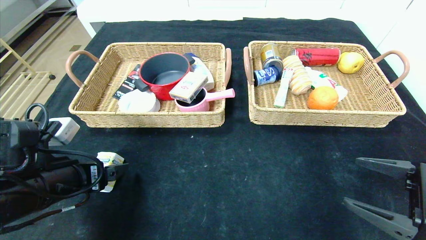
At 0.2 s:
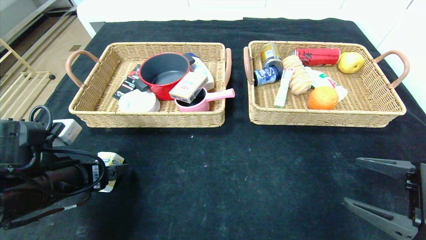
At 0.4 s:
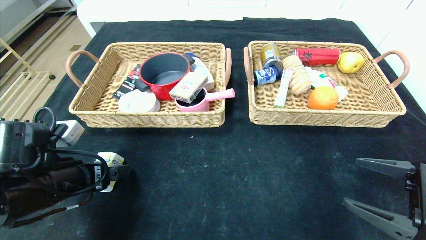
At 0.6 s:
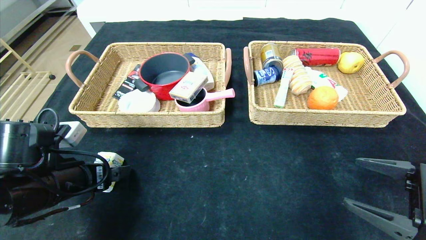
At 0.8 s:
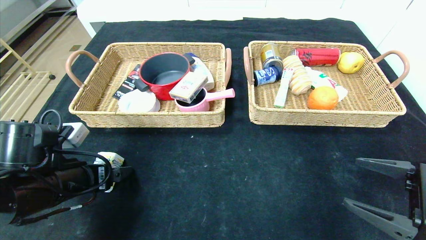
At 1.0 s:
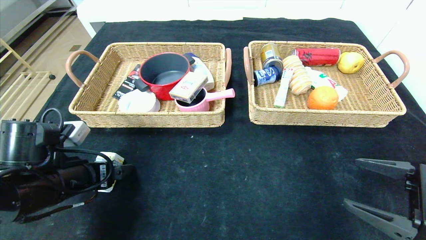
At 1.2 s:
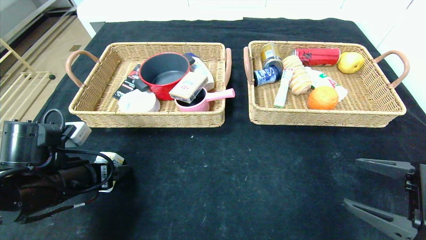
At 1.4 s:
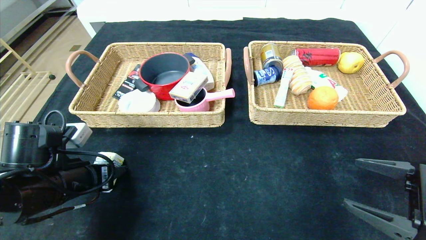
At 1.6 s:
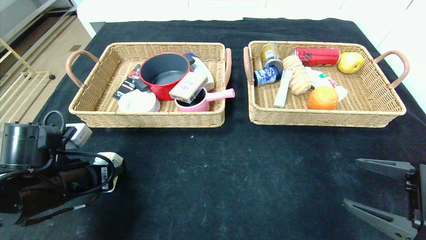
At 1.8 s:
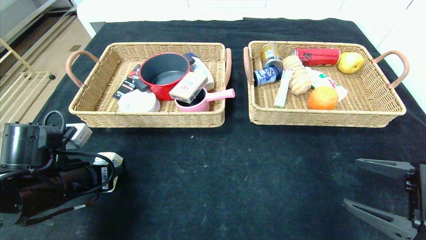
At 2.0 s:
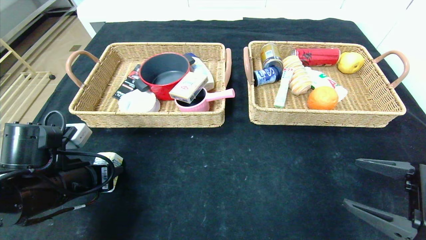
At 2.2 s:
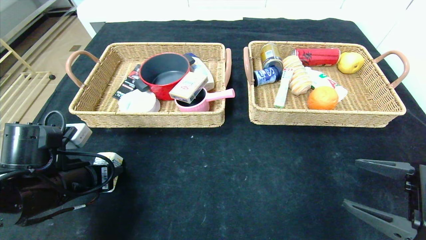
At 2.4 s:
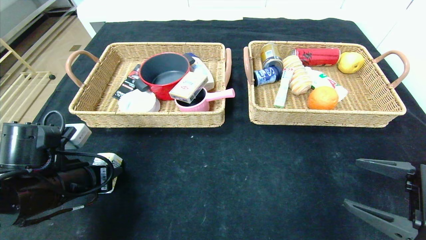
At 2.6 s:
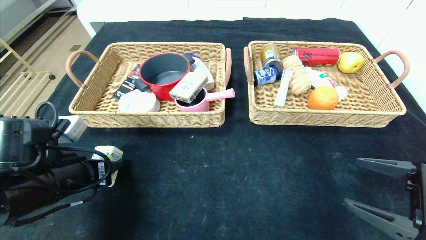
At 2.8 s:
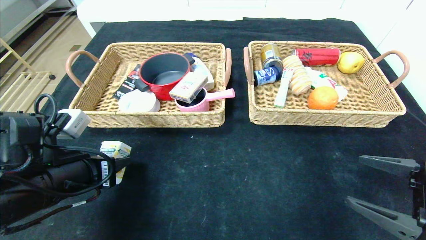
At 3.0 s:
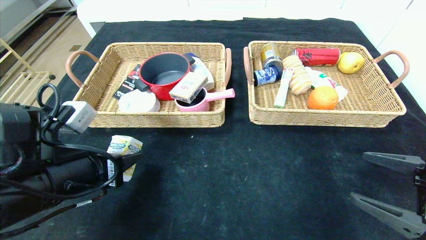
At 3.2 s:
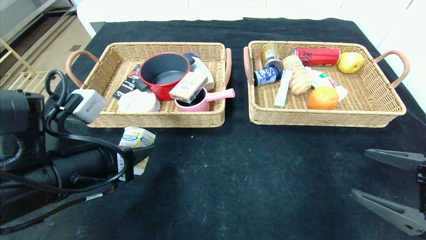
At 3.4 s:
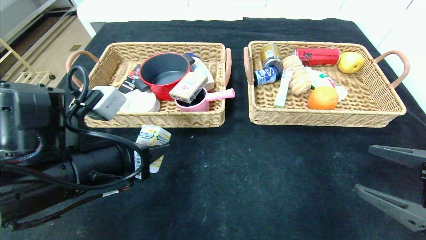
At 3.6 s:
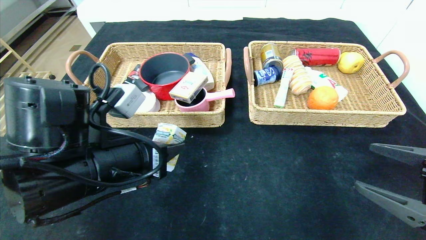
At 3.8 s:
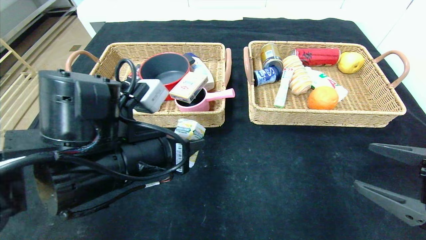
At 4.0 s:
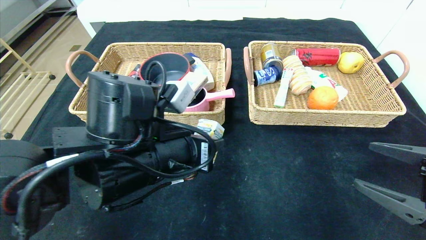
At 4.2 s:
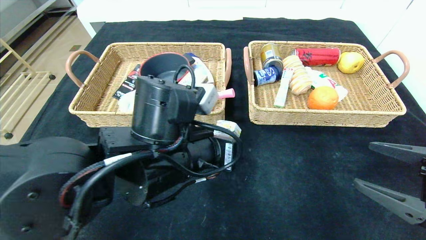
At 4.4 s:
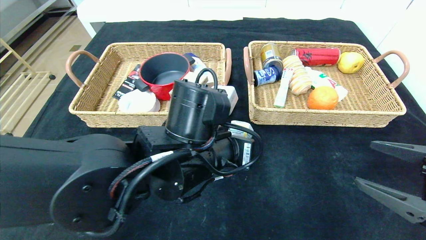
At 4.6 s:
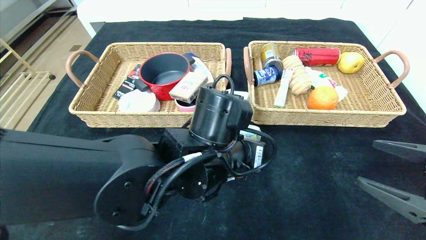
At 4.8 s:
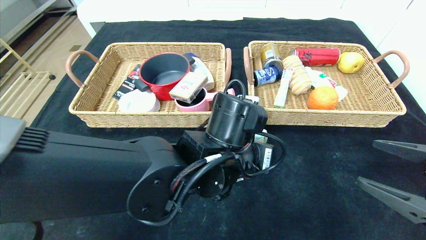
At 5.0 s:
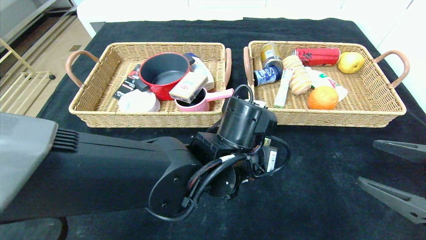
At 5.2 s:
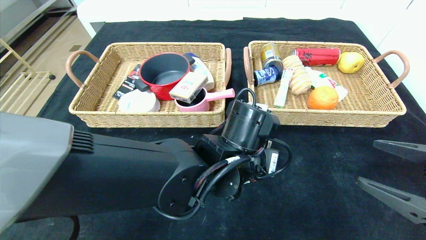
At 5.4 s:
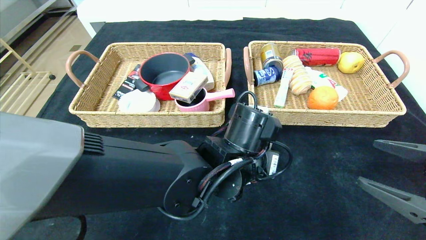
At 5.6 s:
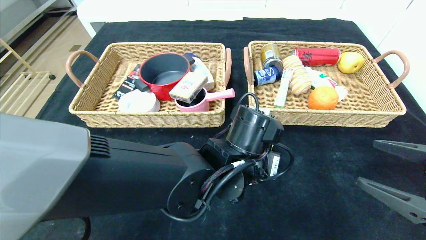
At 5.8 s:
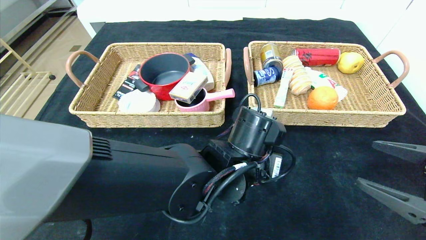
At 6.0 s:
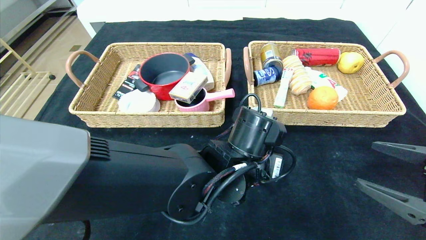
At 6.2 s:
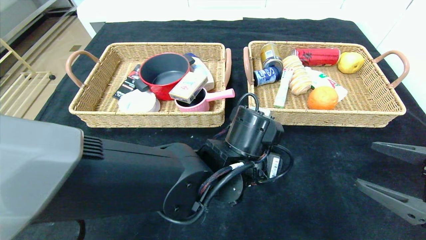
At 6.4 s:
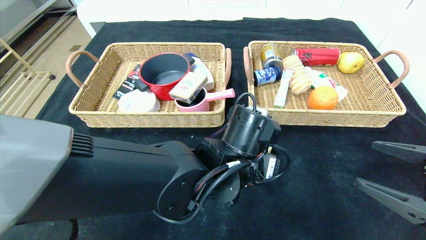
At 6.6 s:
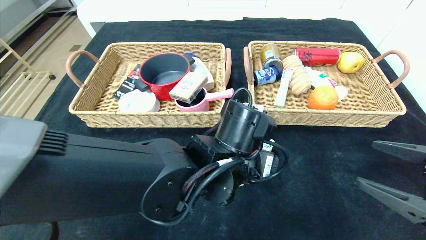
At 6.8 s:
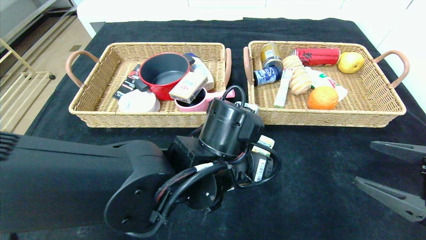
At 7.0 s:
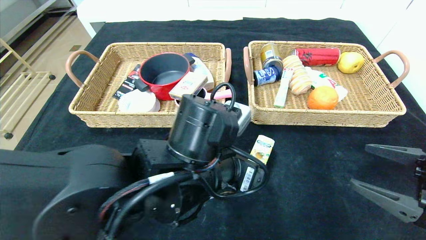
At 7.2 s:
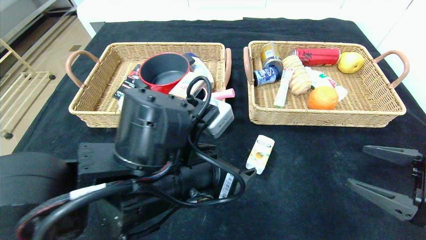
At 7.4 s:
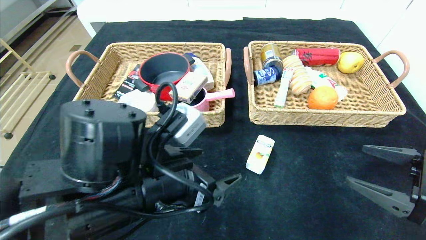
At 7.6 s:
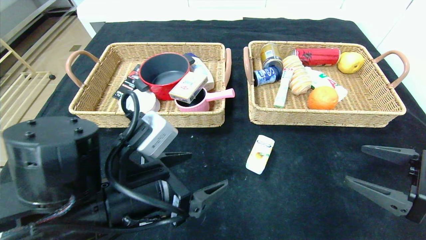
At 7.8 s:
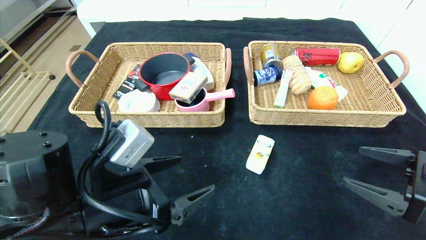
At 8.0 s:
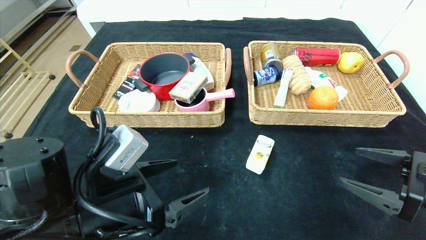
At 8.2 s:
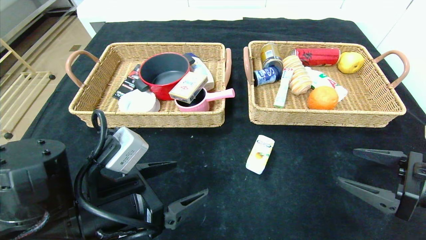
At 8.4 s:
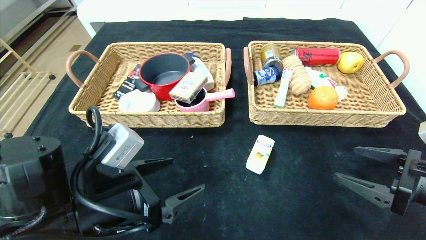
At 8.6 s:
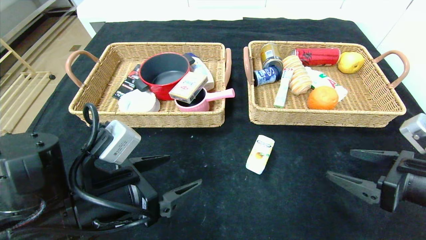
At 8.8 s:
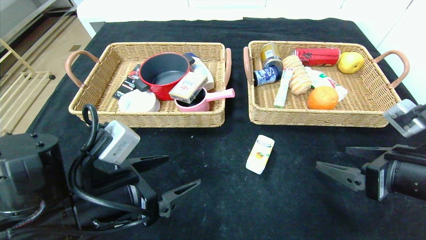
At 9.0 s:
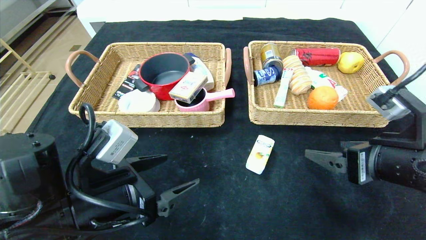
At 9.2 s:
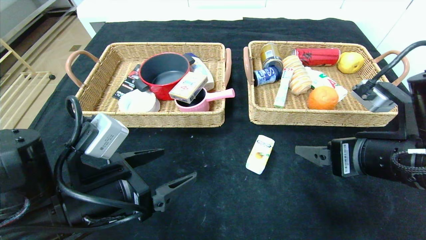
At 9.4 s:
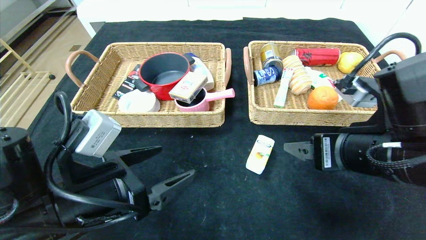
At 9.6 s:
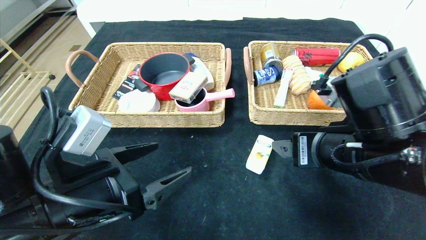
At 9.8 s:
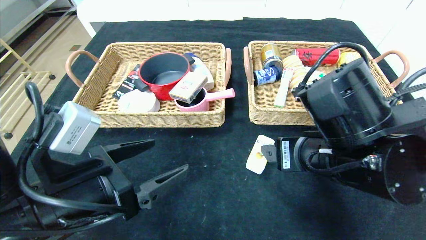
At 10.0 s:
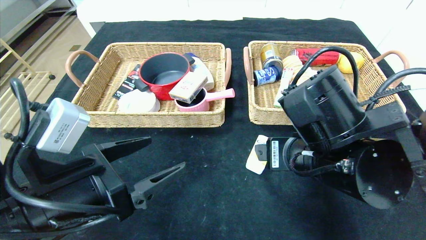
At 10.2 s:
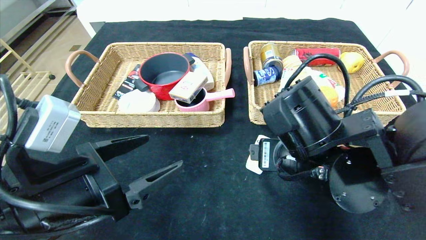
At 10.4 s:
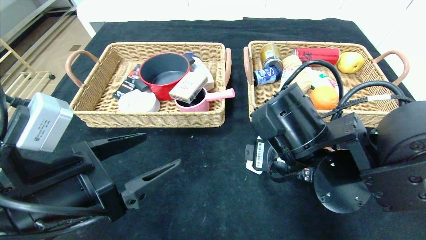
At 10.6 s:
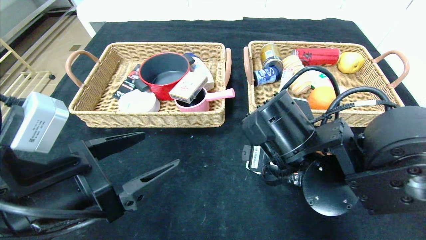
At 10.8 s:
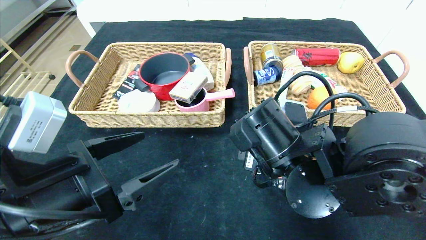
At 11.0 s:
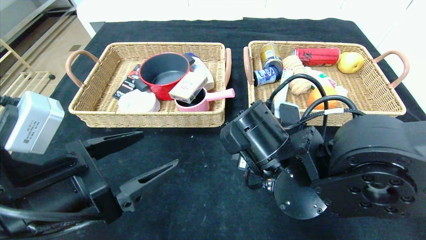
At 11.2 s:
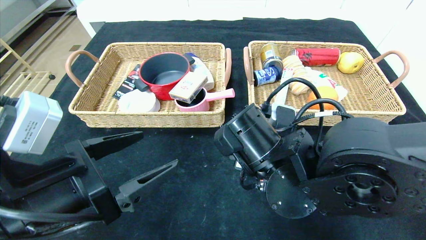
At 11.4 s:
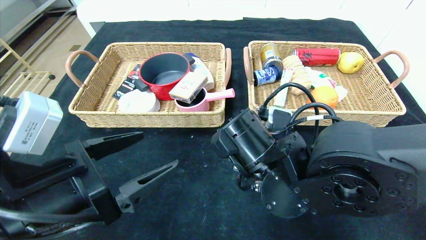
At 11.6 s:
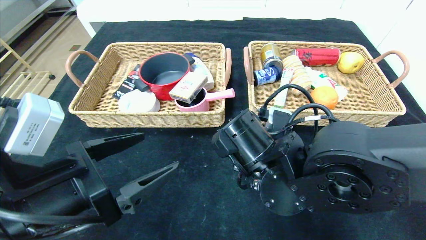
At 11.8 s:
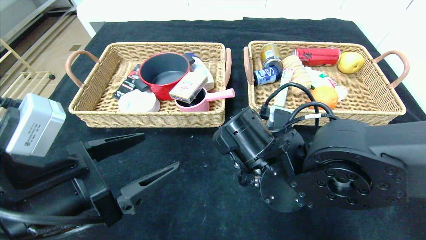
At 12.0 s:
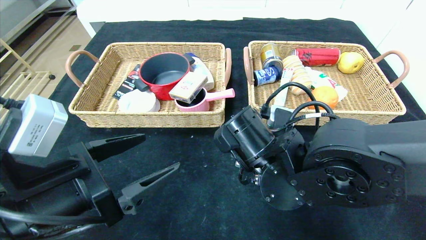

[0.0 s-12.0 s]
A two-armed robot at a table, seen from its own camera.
Step, 0.0 to 6.4 s: Place the square chewing gum in the center of the table.
0.0 to 1.6 s: The left gripper closes.
1.6 to 3.0 s: The left gripper moves roughly 5 cm.
3.0 to 4.4 s: The left gripper goes approximately 20 cm to the right.
4.4 to 6.0 s: The left gripper moves to the right, approximately 5 cm.
6.0 to 7.6 s: The left gripper goes approximately 20 cm to the left and backward.
7.6 to 9.0 s: The right gripper heads to the left, covering roughly 10 cm.
9.0 to 10.4 s: The right gripper heads to the left, covering approximately 15 cm.
10.4 to 12.0 s: The right gripper ends up roughly 5 cm from where it was.

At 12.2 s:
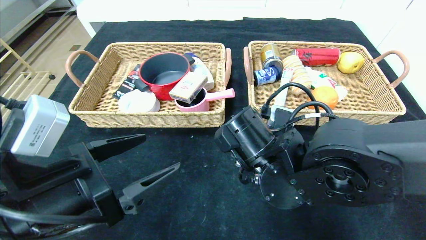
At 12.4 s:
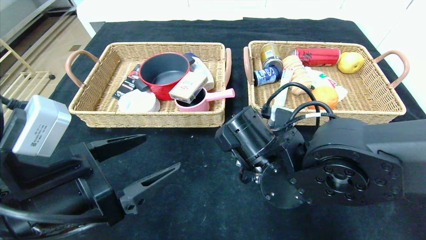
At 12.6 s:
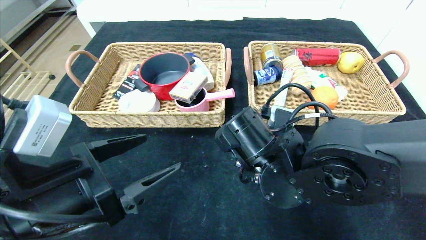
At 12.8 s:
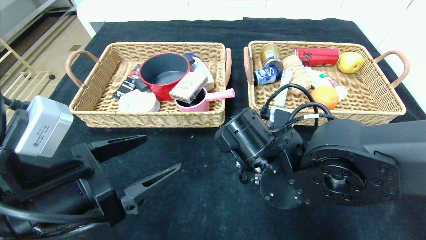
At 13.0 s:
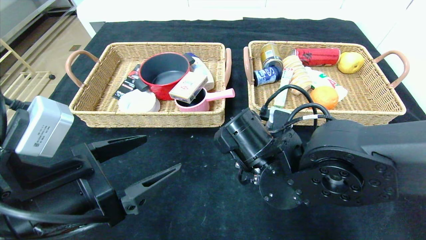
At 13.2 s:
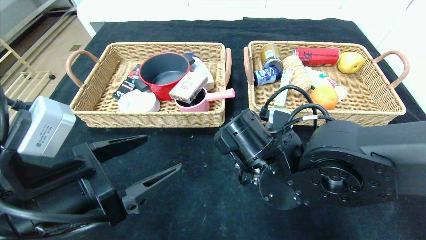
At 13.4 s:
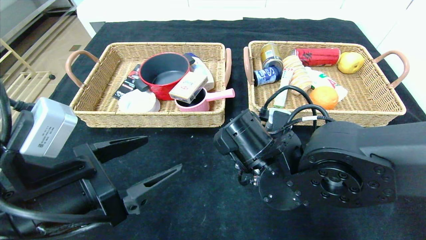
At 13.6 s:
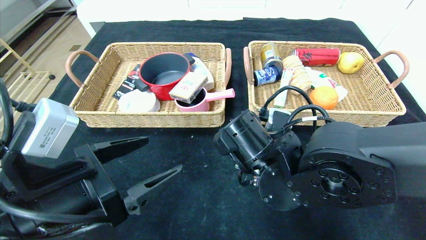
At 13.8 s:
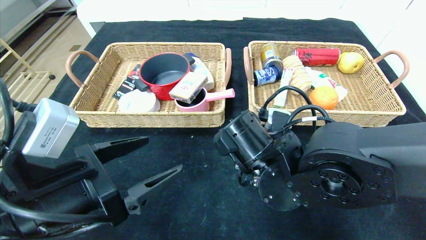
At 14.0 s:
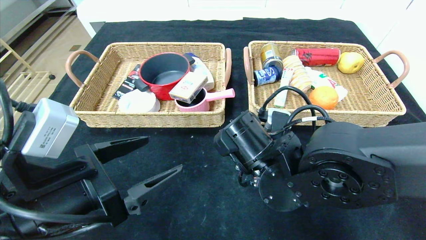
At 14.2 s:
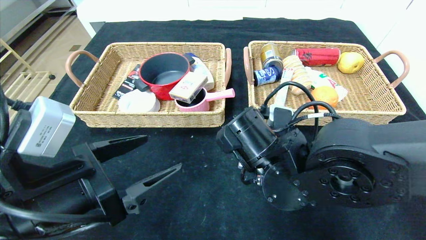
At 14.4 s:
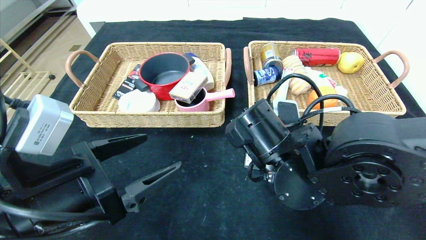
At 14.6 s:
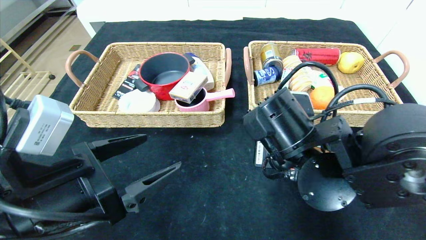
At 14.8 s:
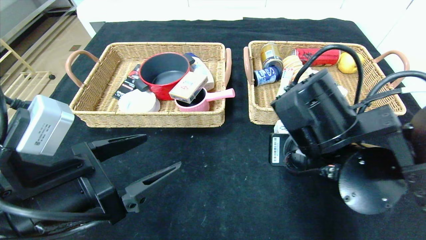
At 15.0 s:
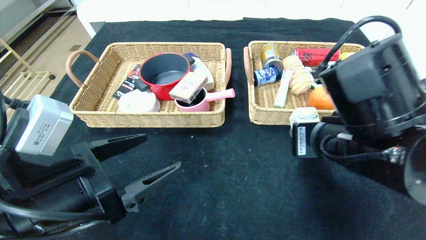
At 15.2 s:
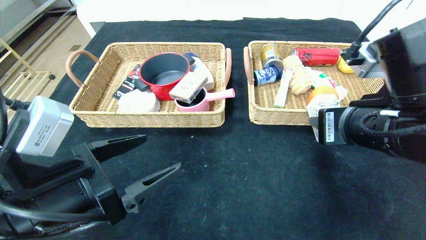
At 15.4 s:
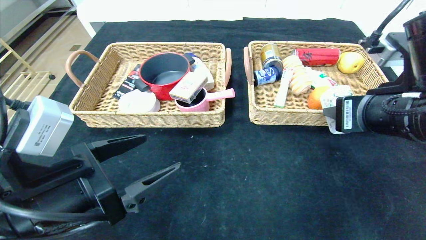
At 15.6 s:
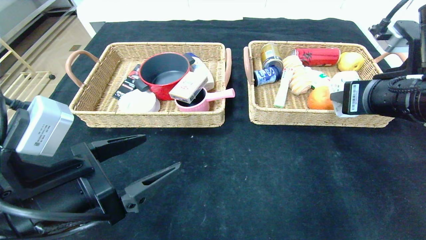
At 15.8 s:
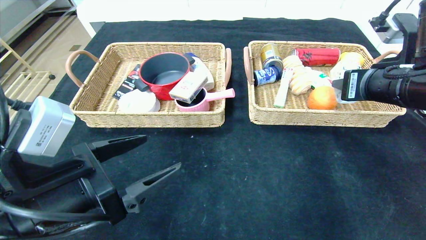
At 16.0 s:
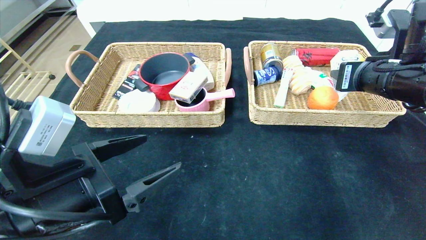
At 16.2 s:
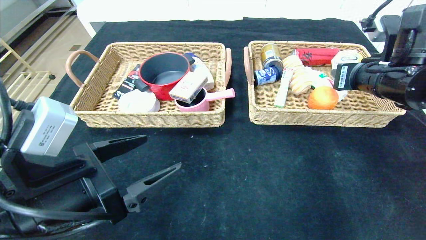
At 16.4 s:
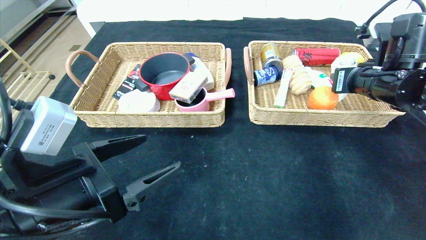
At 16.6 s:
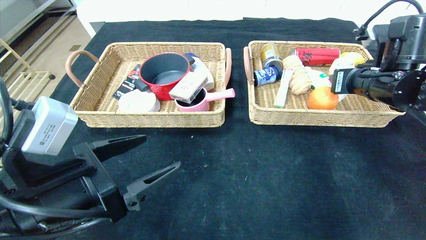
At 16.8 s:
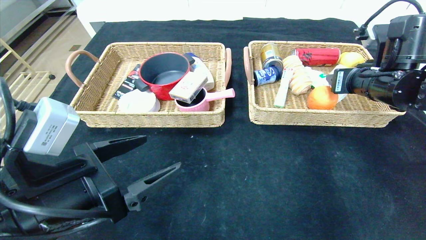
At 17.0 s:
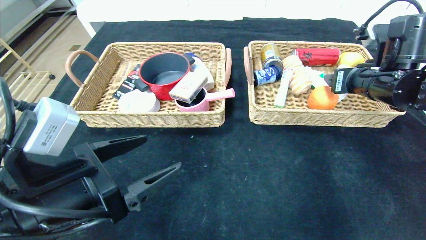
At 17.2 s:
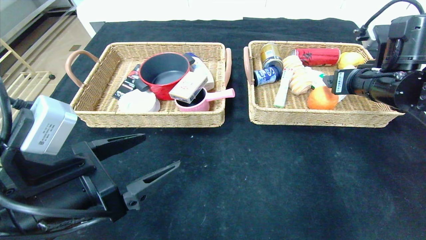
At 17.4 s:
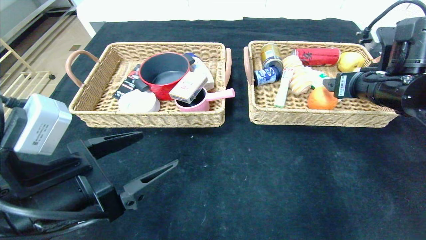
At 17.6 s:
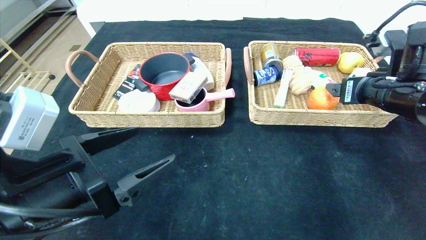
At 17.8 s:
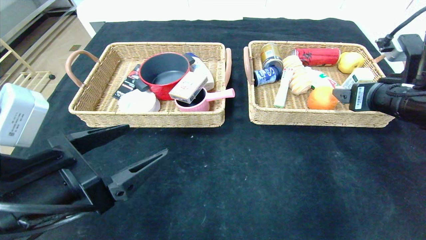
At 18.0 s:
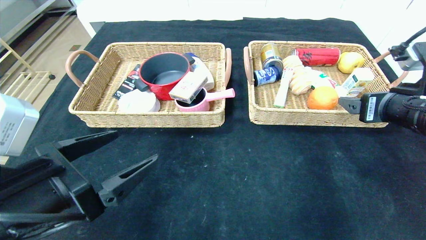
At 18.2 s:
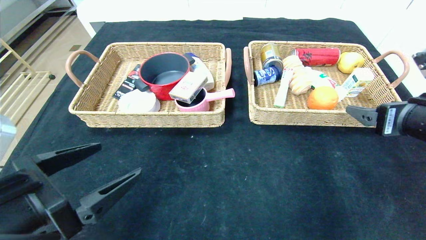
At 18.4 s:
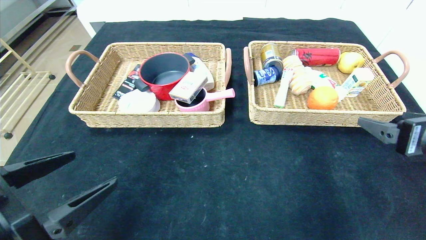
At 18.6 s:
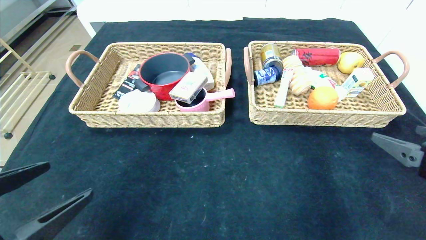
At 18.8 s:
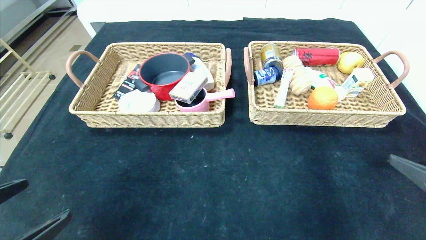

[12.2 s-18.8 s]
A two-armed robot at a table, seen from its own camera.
Step, 12.2 to 17.0 s: Grasp the square chewing gum and put it in the right basket.
12.2 to 13.8 s: The right gripper closes.
13.8 to 15.4 s: The right gripper goes some 20 cm to the right and upward.
15.4 to 17.2 s: The right gripper goes roughly 15 cm forward and to the right, and opens up.
17.2 to 18.8 s: The right gripper heads backward, covering about 20 cm, while the left gripper travels backward and to the left by about 15 cm.
